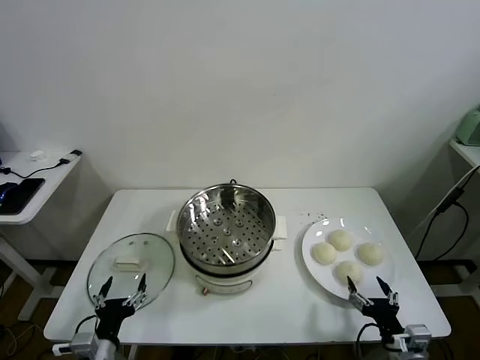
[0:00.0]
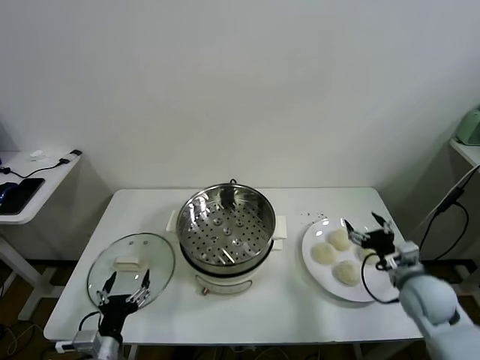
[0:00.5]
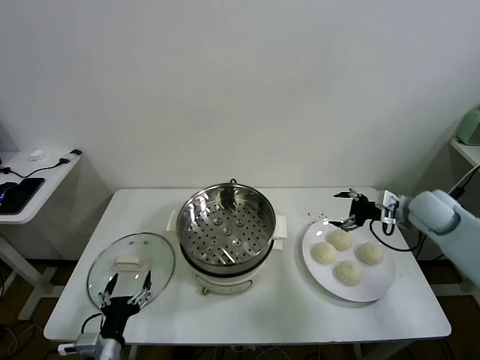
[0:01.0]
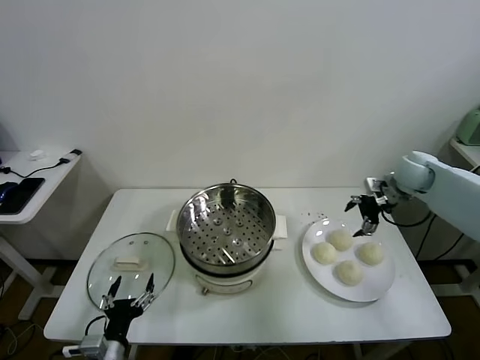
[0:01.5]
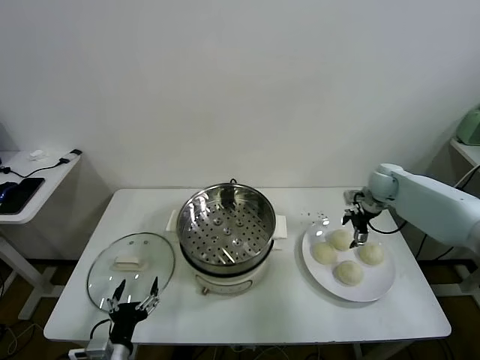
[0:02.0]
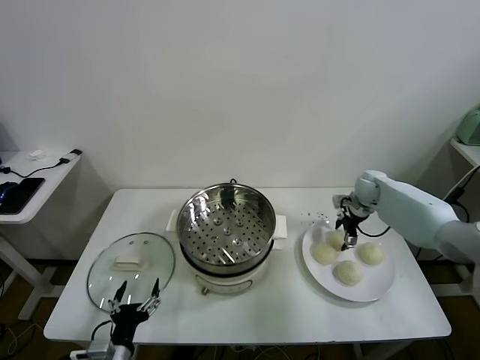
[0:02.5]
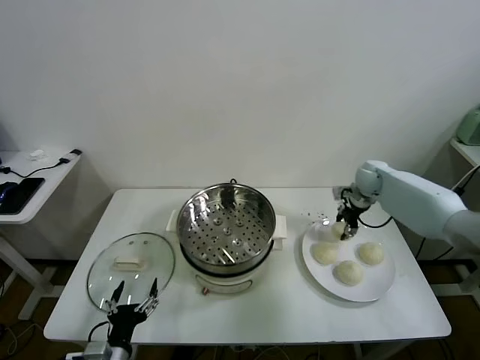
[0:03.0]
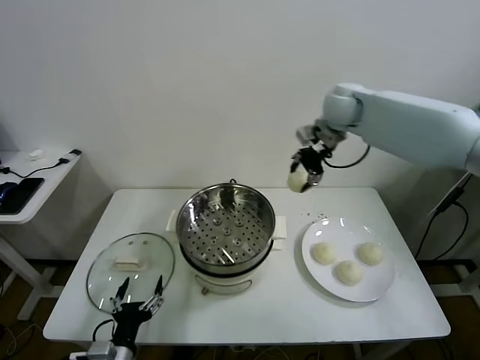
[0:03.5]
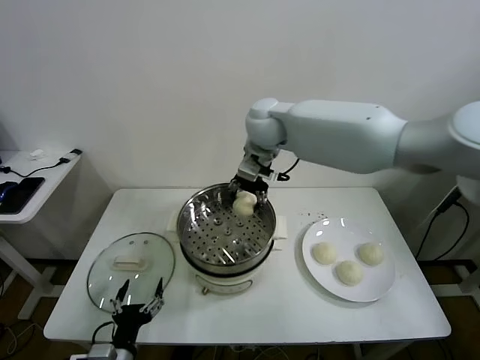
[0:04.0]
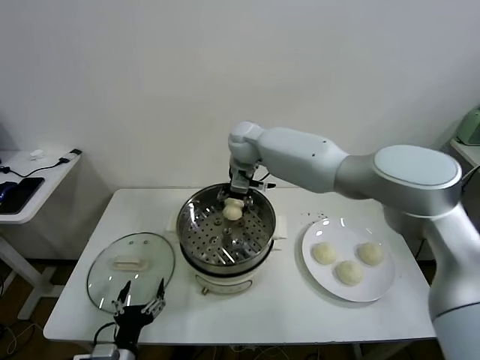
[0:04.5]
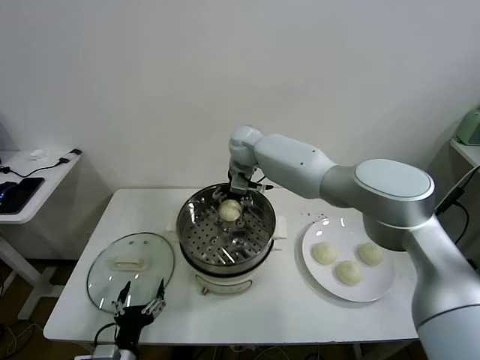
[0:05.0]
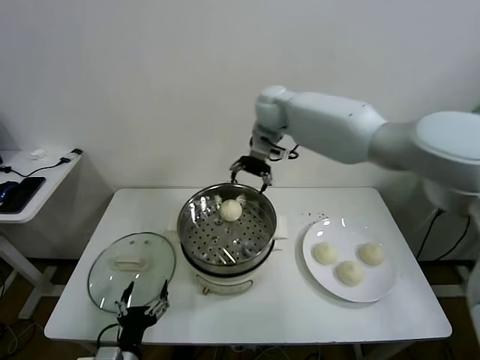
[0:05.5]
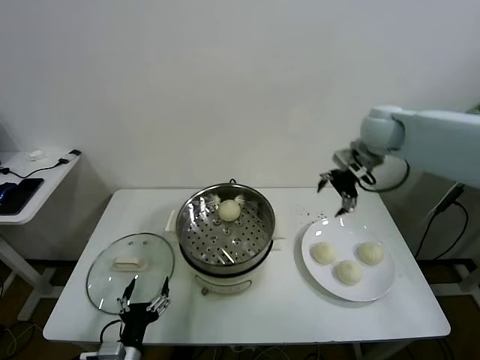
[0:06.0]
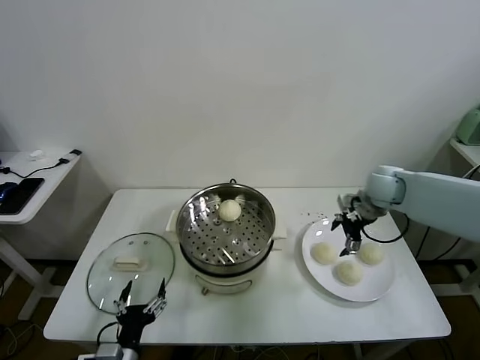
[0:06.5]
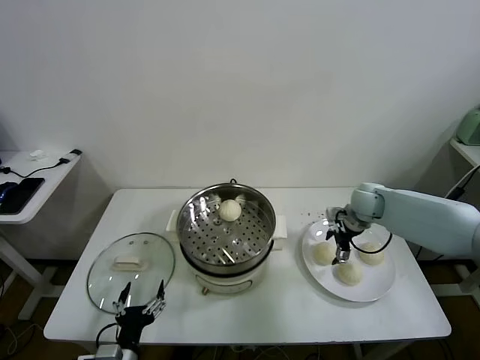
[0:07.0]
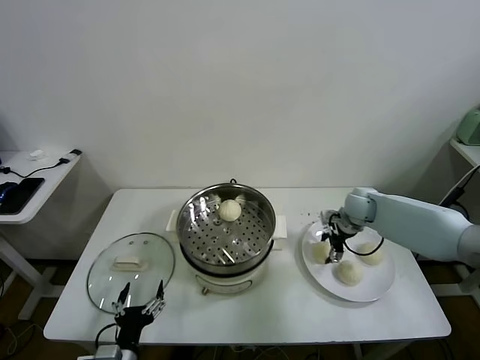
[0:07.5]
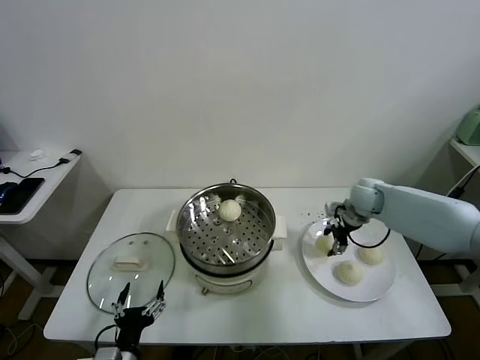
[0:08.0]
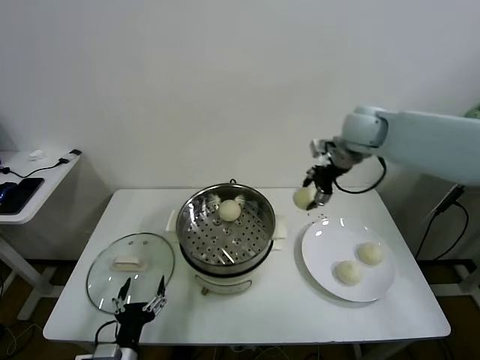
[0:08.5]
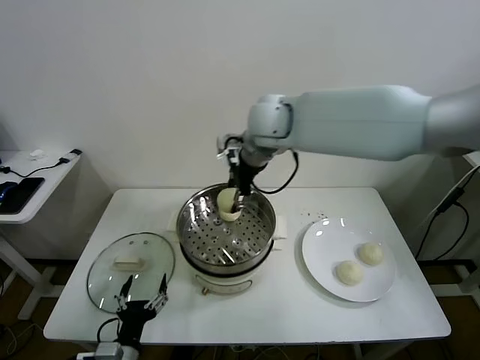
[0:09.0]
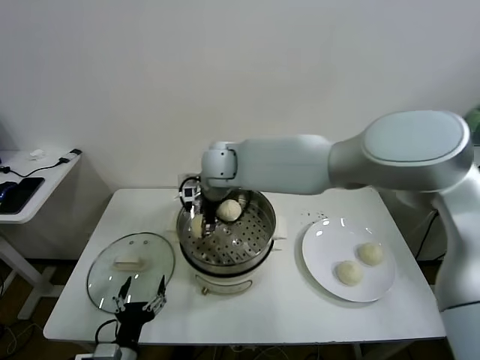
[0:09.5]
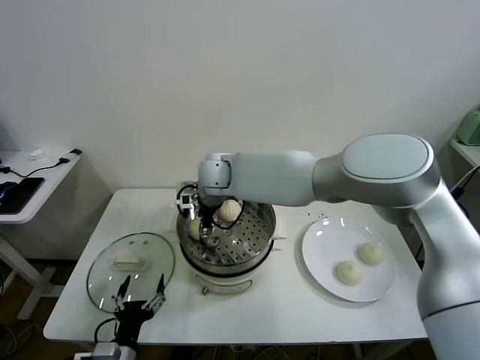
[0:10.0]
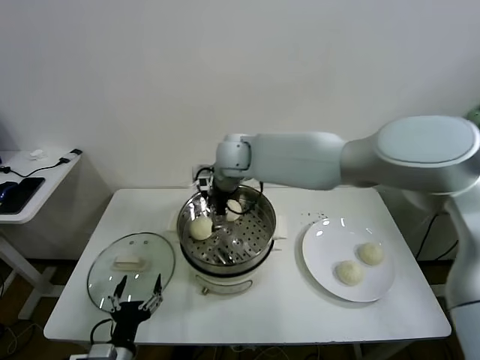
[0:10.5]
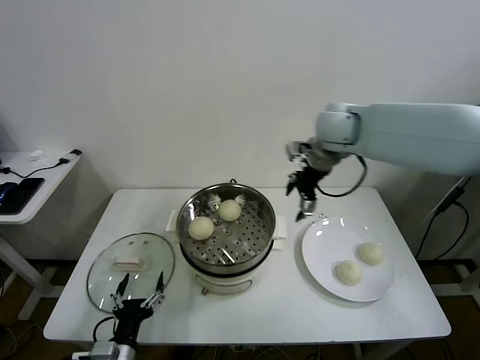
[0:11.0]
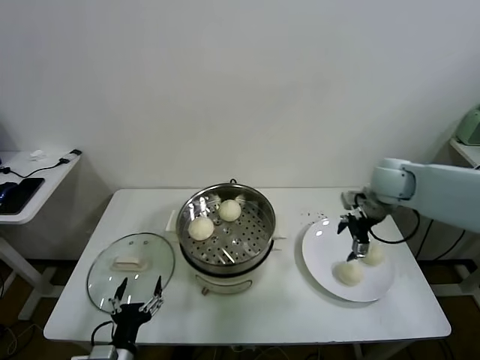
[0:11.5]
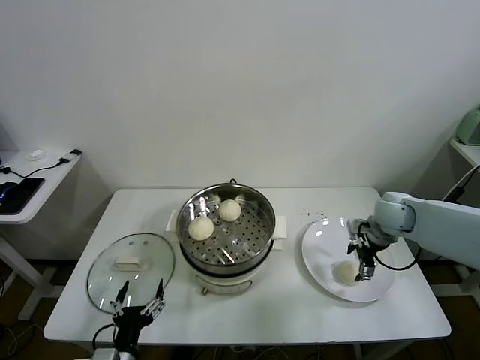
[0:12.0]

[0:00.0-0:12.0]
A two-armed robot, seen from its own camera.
Task of the whole recording: take steamed baozi put them in steamer.
Step, 0:00.0 to 0:02.5: Grasp the baozi in the plate with right gripper.
Step, 0:03.0 to 0:05.0: Place the baozi on the steamer with right gripper.
Step, 0:05.5 to 0:07.5: Grasp the baozi in the plate with right gripper.
Step, 0:08.0 to 0:10.0: Place the baozi on the steamer with right gripper.
0:02.0 to 0:04.0: The right gripper heads to the left and upward, covering approximately 40 cm, and closes.
0:04.0 to 0:06.0: The right gripper is displaced to the right by about 30 cm, and opens up.
0:06.0 to 0:08.0: The right gripper heads downward, covering some 15 cm, and closes.
0:08.0 to 0:10.0: The right gripper heads to the left, covering about 40 cm.
0:10.0 to 0:12.0: The right gripper travels to the right by some 40 cm, and opens up.

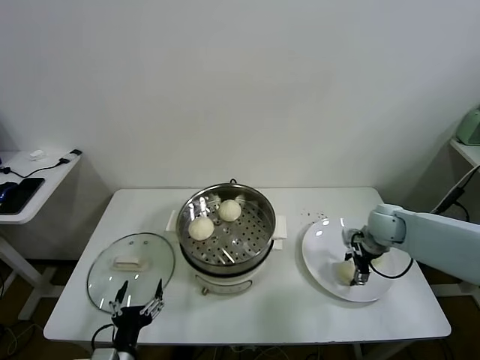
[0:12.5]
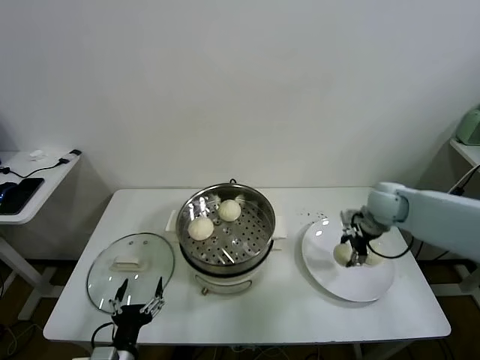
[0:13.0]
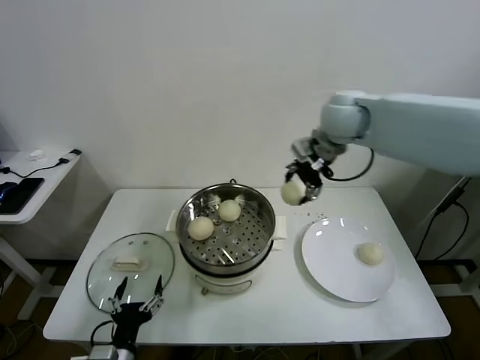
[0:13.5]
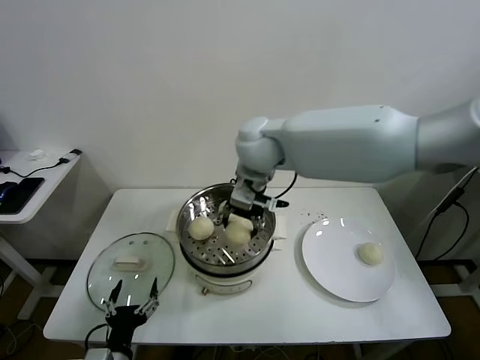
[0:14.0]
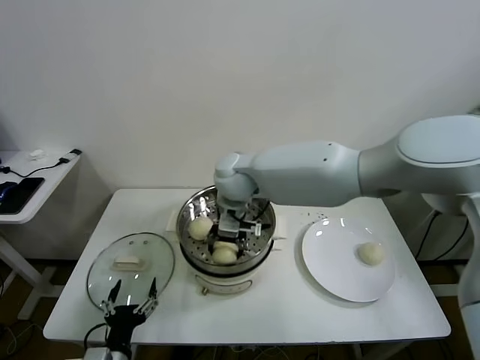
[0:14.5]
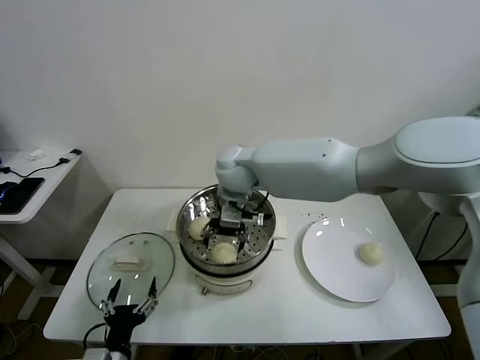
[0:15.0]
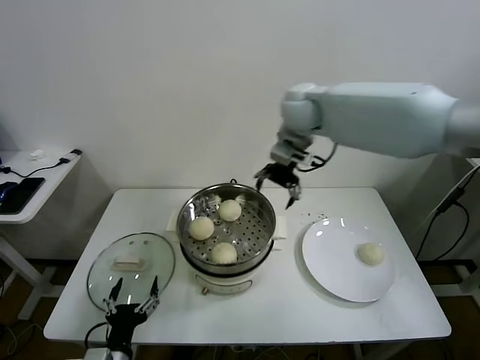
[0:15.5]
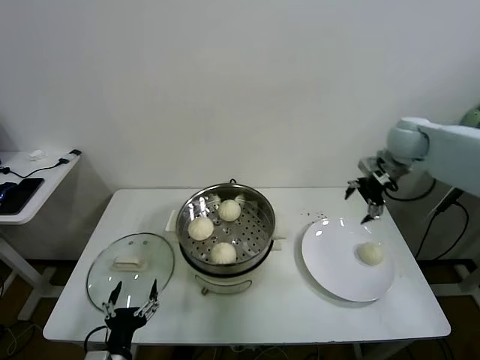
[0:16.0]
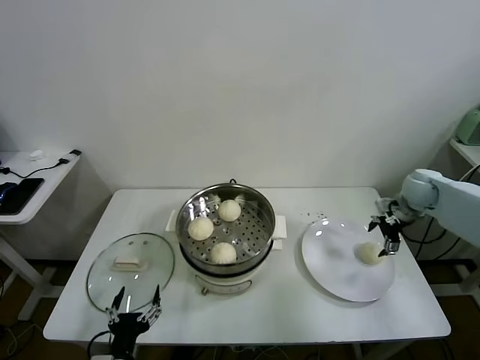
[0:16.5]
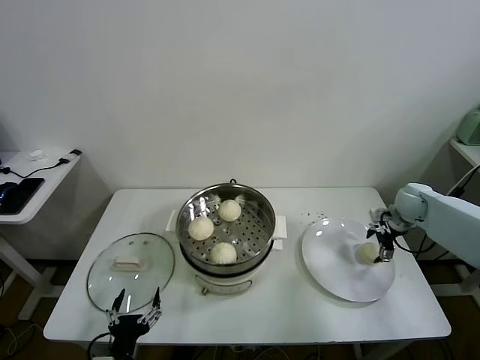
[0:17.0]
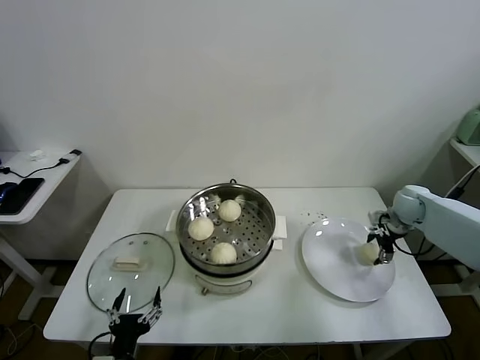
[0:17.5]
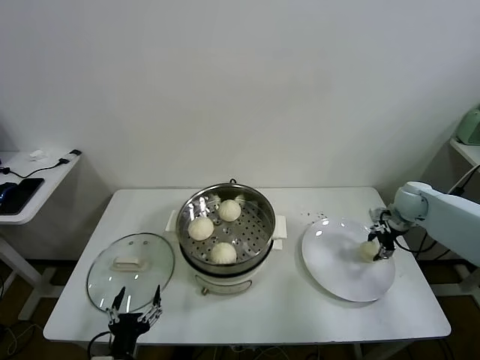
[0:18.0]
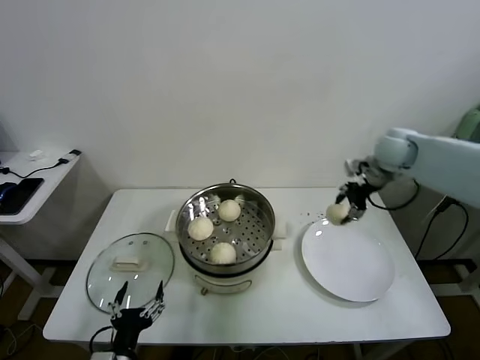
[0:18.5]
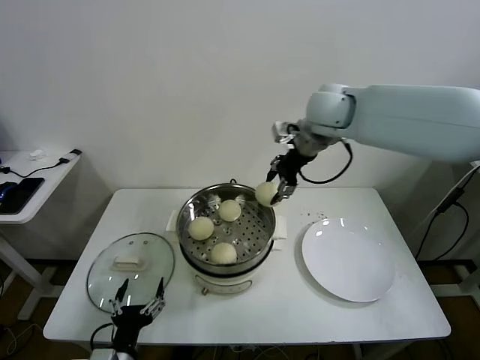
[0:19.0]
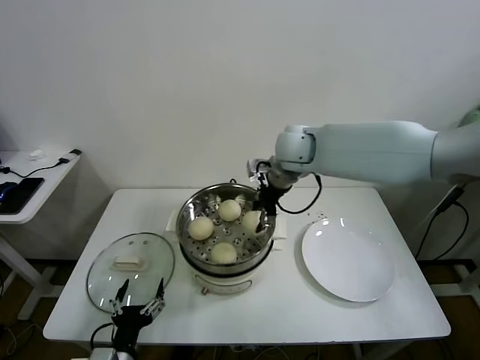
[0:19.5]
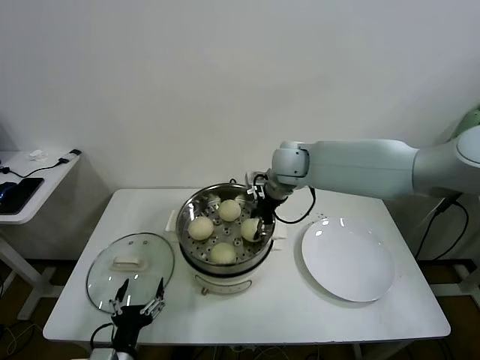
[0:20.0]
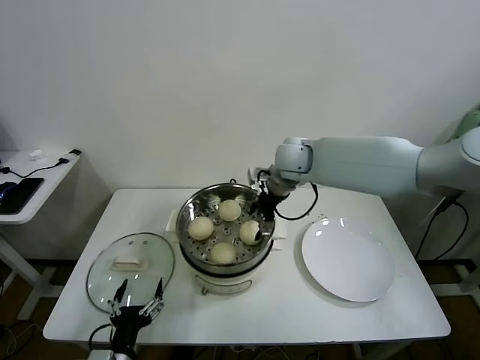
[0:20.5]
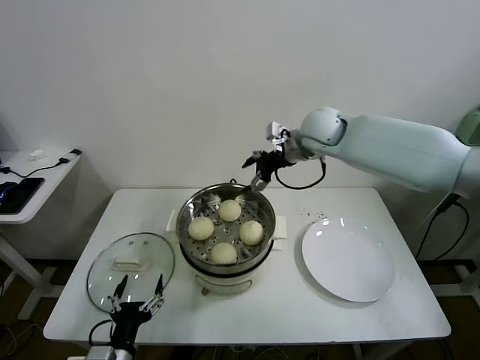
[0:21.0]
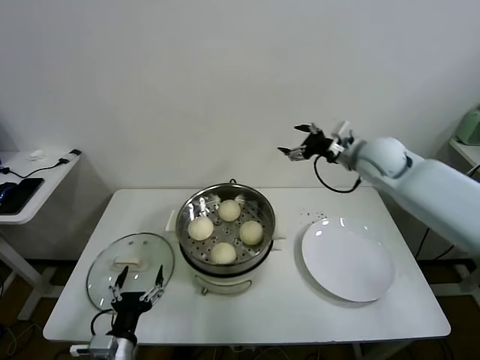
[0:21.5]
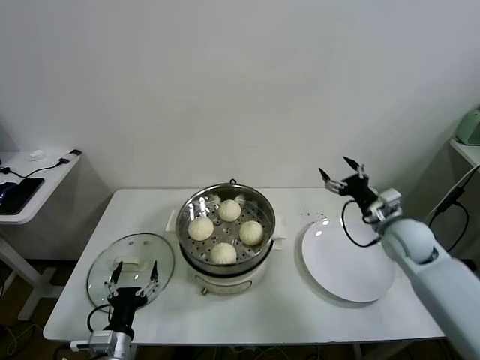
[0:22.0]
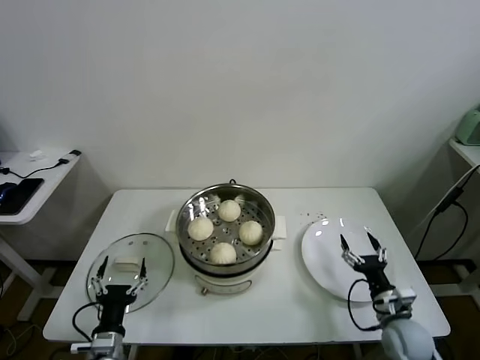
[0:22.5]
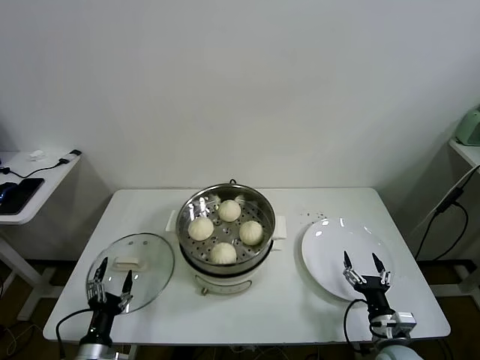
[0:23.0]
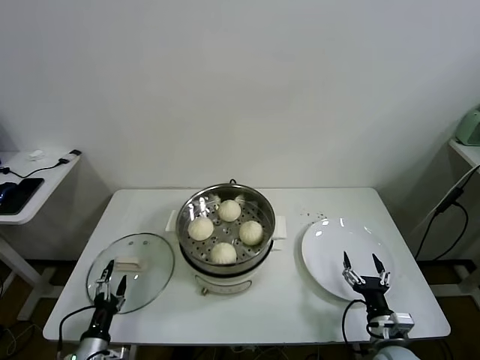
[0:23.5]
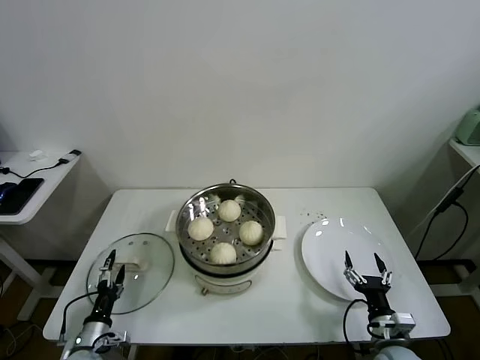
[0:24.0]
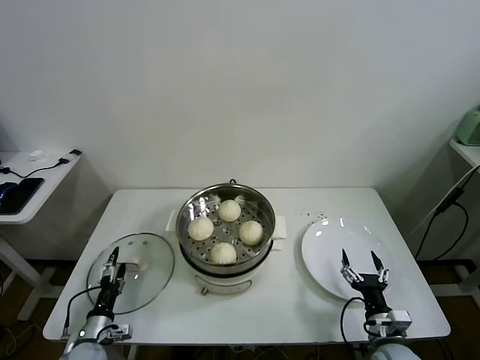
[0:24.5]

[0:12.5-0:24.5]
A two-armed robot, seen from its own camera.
Task of the whole recording: take steamed baozi put them in steamer.
Step, 0:13.0 to 0:14.5: Place the baozi on the steamer with right gripper.
Step, 0:15.5 to 0:17.5: Grasp the baozi in the plate with right gripper.
Step, 0:18.0 to 0:20.0: Place the baozi on the steamer with right gripper.
0:12.5 to 0:14.5: The right gripper travels to the left and upward by some 40 cm.
0:14.5 to 0:16.5: The right gripper moves to the right, about 50 cm, and opens.
0:16.5 to 0:18.5: The right gripper travels upward and to the left by about 15 cm, and closes its fingers.
0:18.5 to 0:20.5: The right gripper heads to the left, covering approximately 20 cm, and opens.
0:20.5 to 0:22.5: The left gripper moves some 5 cm, while the right gripper goes about 50 cm downward, backward and to the right.
0:22.5 to 0:24.5: The right gripper shifts by about 5 cm. Meanwhile the left gripper moves downward, to the left and forward, some 15 cm.

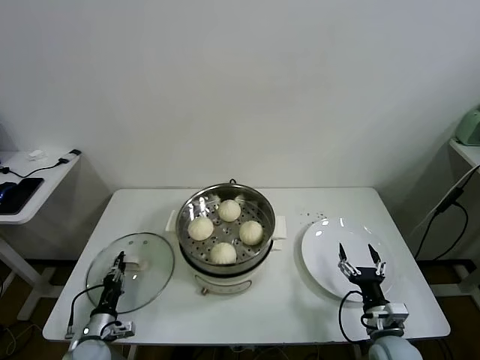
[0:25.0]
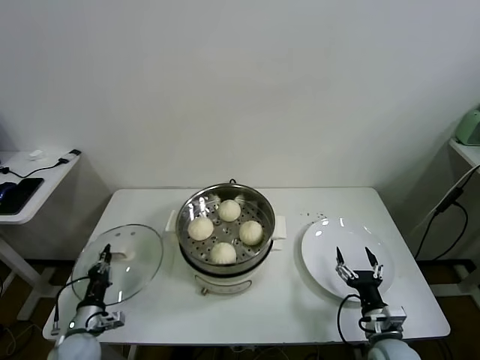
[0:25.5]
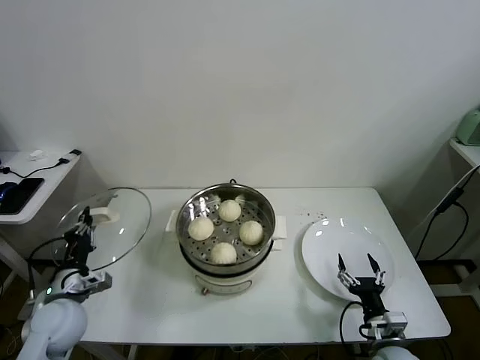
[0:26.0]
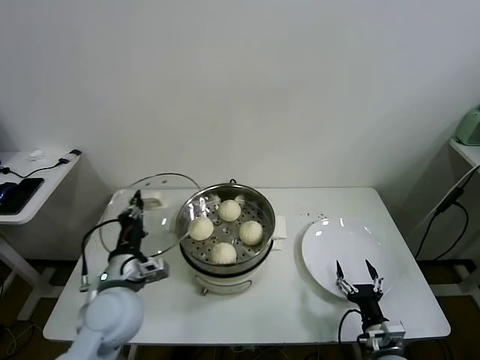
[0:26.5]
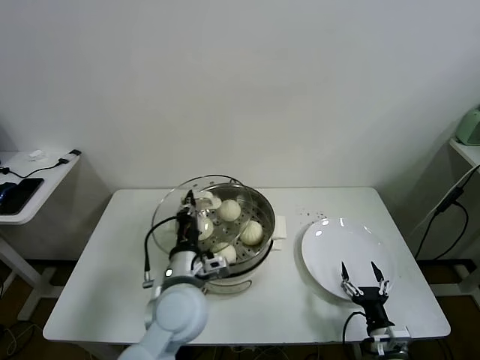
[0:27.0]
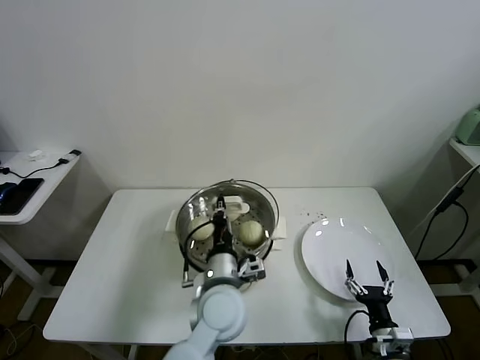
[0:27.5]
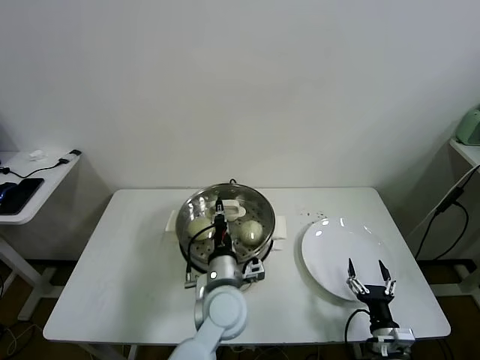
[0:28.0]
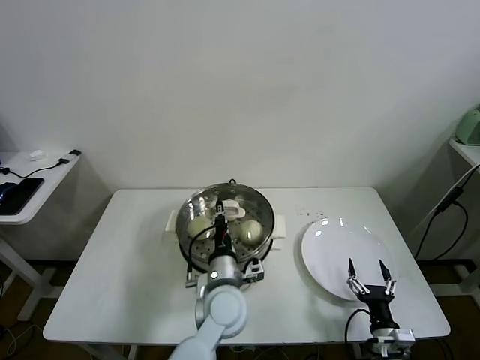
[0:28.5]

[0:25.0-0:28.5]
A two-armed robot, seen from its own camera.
Task of the whole recording: take steamed baozi put them in steamer.
0:25.0 to 0:27.0: The left gripper is displaced to the right and upward by about 35 cm.
0:27.0 to 0:28.5: The left gripper heads to the right and downward, covering about 10 cm.
